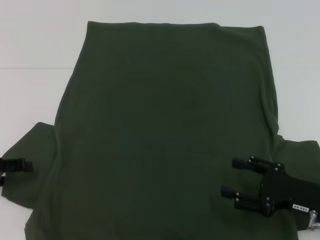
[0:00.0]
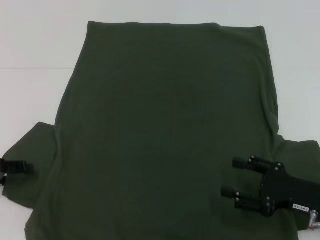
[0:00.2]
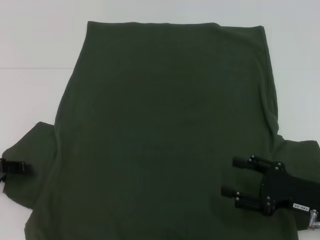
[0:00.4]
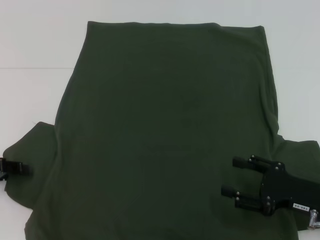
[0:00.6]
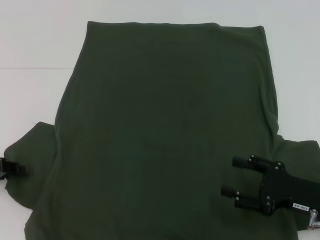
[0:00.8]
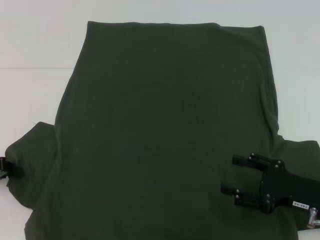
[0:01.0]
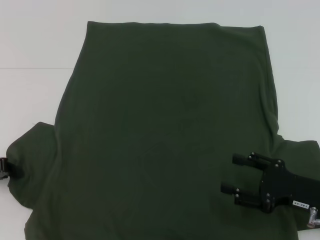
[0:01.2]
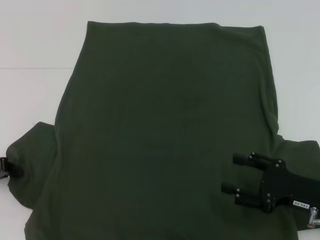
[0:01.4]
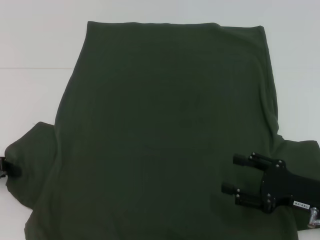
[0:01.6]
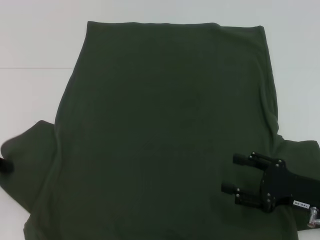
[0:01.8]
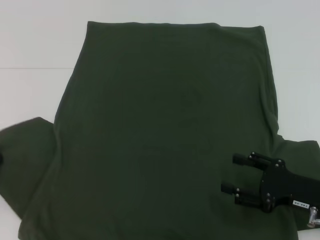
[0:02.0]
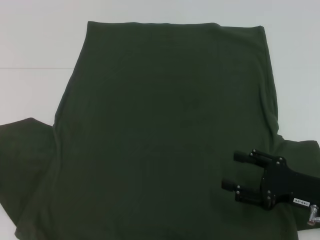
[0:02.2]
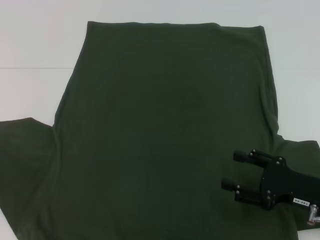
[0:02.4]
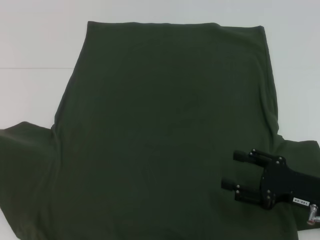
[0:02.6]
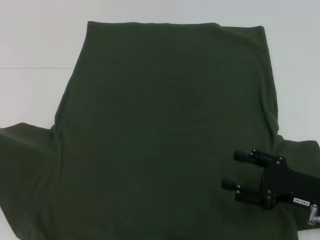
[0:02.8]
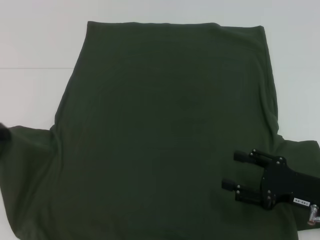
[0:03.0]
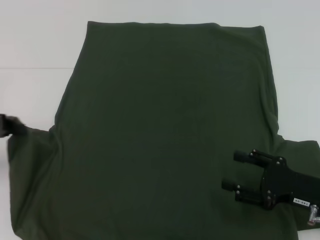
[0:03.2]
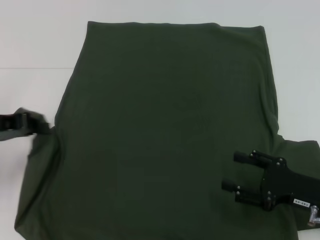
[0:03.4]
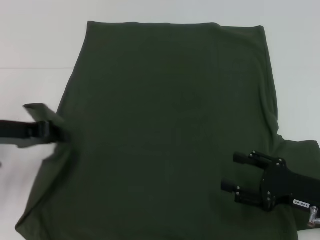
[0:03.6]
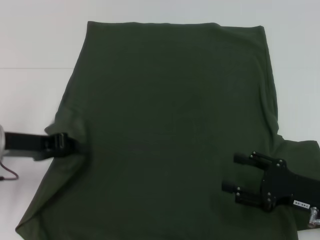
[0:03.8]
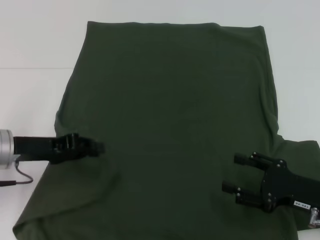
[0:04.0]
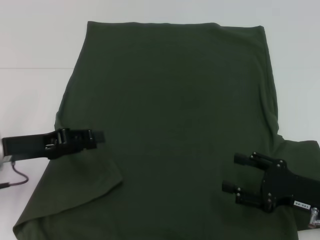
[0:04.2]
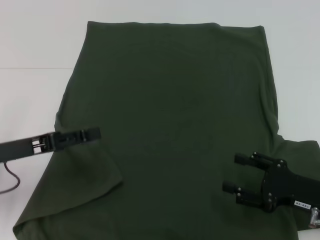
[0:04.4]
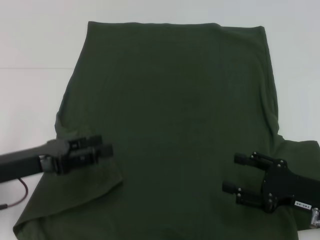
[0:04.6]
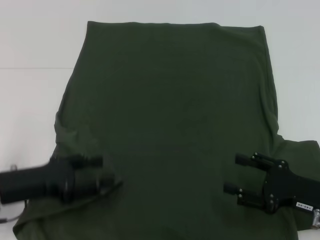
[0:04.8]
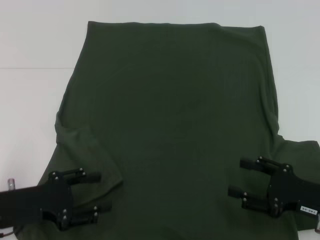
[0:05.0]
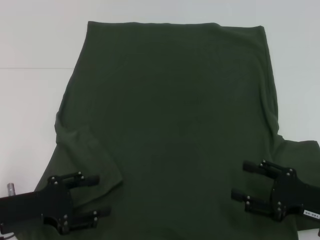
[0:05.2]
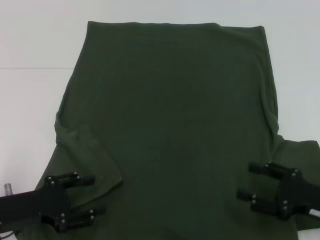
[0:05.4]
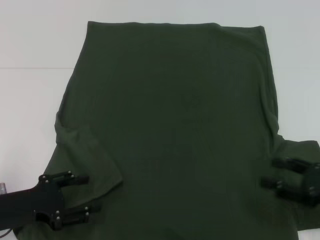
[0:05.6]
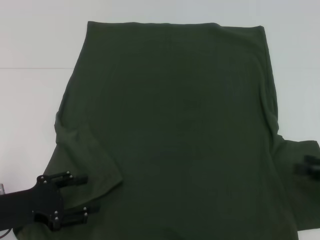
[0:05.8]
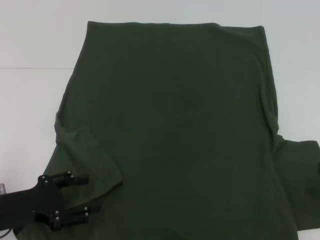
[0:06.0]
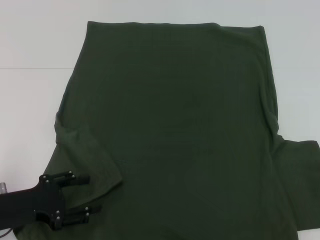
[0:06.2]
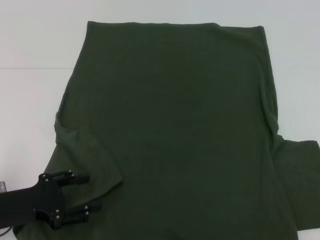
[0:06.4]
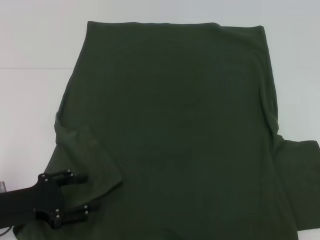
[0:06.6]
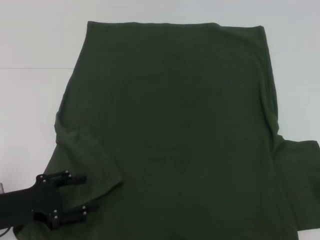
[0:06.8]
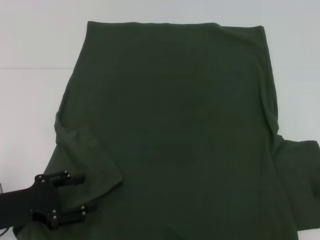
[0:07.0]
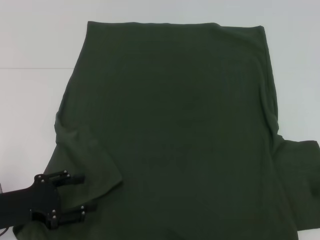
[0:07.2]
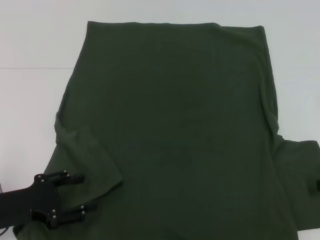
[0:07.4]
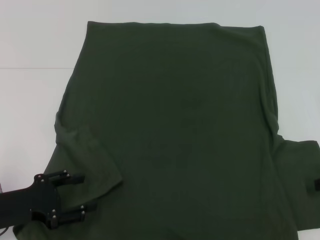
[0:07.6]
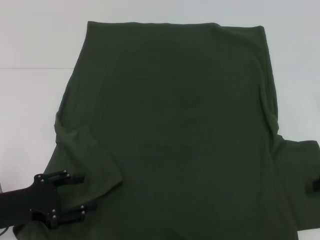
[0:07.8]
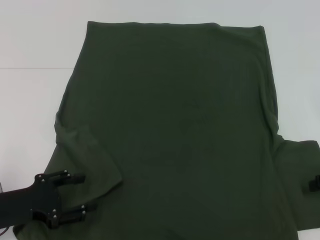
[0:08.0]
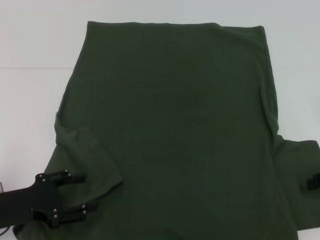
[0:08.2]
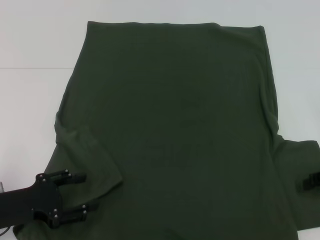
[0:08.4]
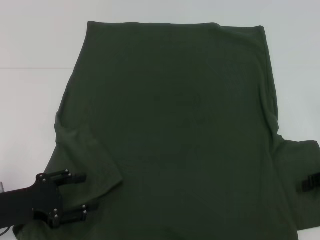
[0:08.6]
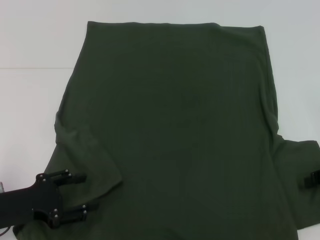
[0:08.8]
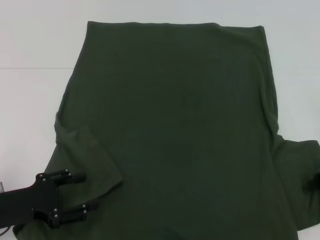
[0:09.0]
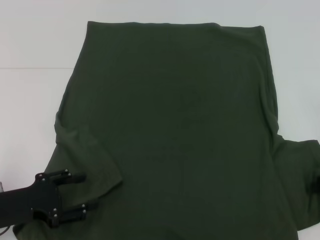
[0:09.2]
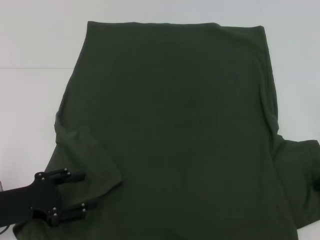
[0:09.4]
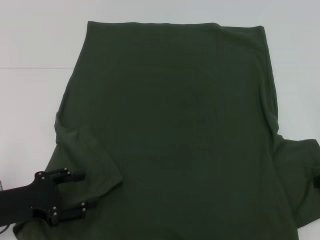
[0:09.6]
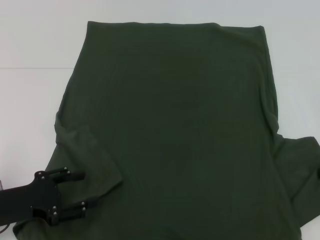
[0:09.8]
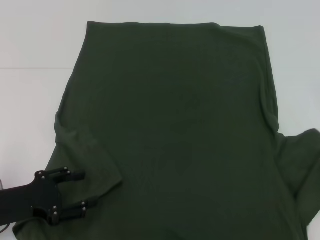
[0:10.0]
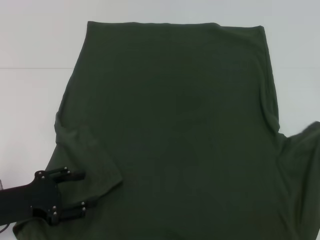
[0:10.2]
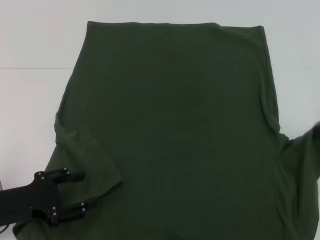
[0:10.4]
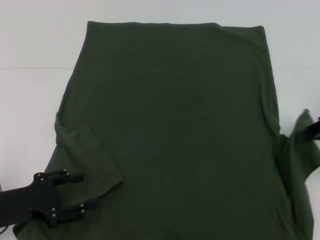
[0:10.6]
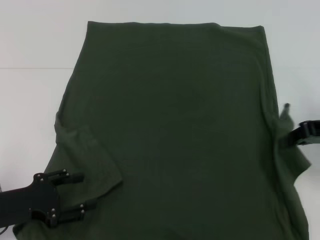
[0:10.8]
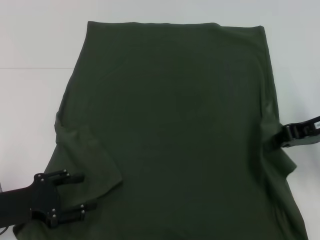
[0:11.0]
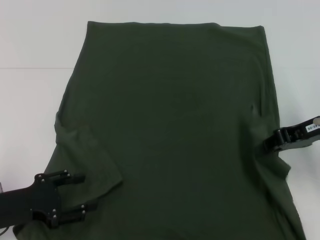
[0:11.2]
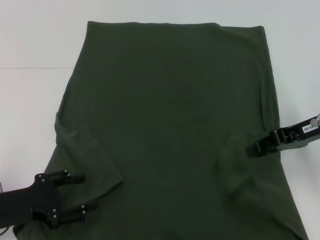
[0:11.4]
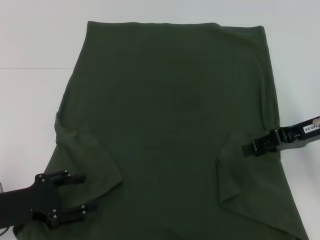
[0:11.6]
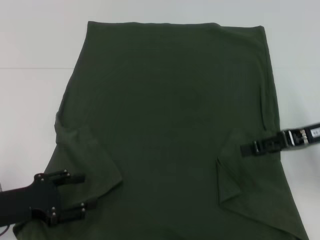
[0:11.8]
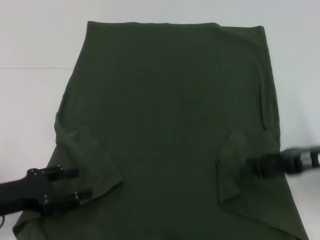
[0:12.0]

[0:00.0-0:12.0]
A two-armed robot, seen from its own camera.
Step, 0:00.0 to 0:04.0: Fold the bottom left sleeve with your left hand.
Step, 0:04.2 to 0:11.4: Fold the bottom right sleeve with your right hand.
0:00.0 to 0:01.6: The left gripper closes its fingers.
0:01.6 to 0:03.0: The left gripper moves upward, some 5 cm.
0:03.0 to 0:04.4: The left gripper is displaced to the right by approximately 10 cm, and opens up.
0:04.4 to 0:06.0: The left gripper goes roughly 5 cm backward, and opens; the right gripper is displaced to the right and upward by roughly 15 cm.
0:09.0 to 0:10.4: The right gripper is displaced upward by about 5 cm, and closes its fingers.
0:10.4 to 0:12.0: The right gripper moves to the left, some 5 cm, and opens.

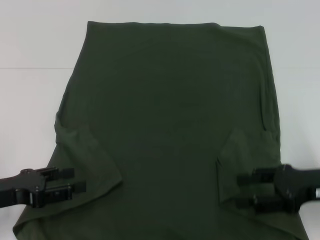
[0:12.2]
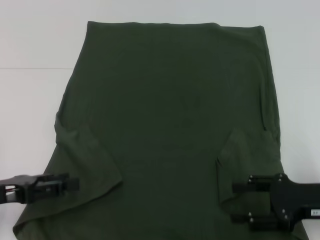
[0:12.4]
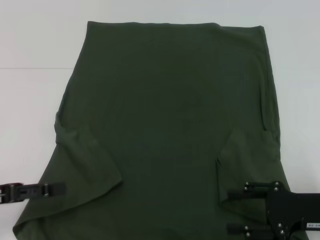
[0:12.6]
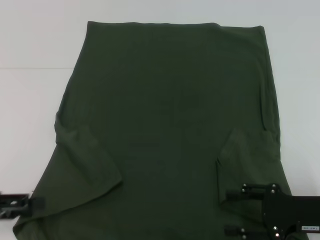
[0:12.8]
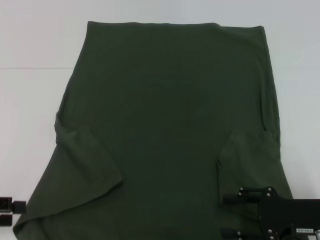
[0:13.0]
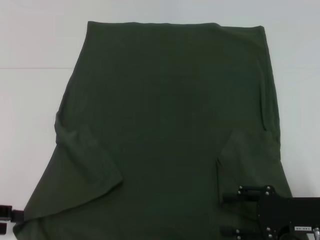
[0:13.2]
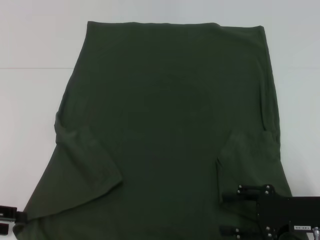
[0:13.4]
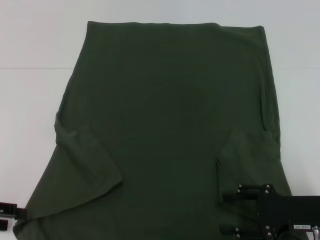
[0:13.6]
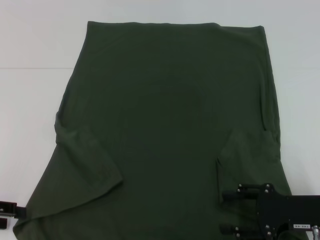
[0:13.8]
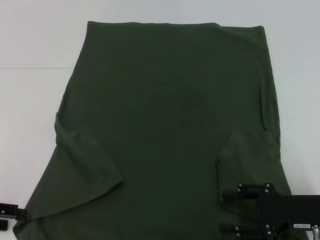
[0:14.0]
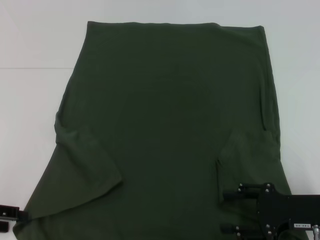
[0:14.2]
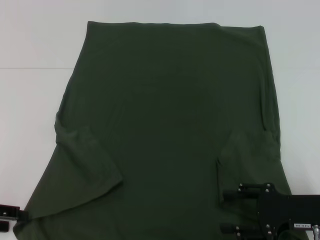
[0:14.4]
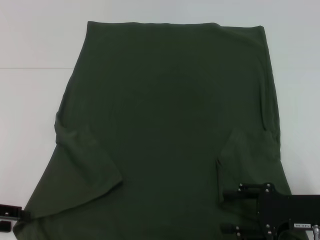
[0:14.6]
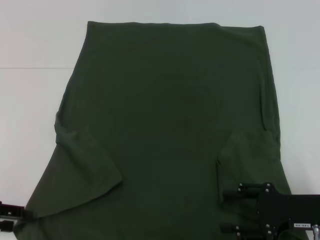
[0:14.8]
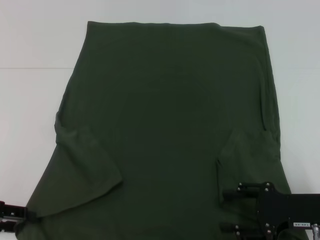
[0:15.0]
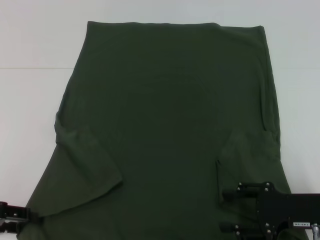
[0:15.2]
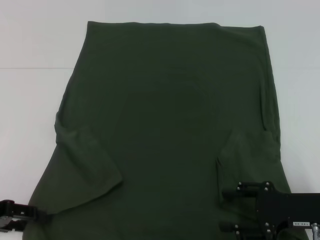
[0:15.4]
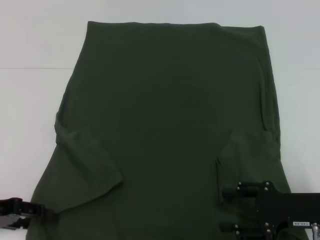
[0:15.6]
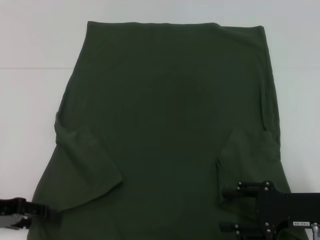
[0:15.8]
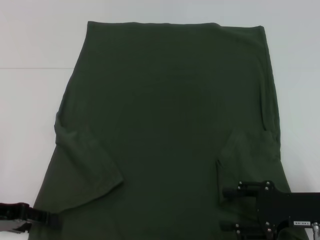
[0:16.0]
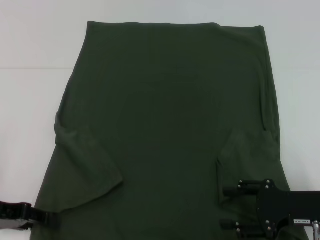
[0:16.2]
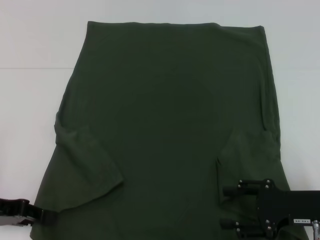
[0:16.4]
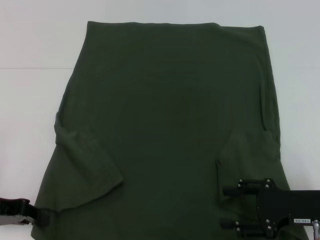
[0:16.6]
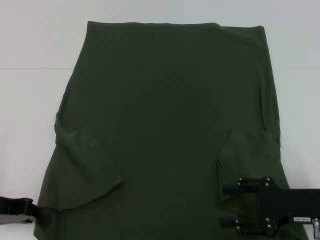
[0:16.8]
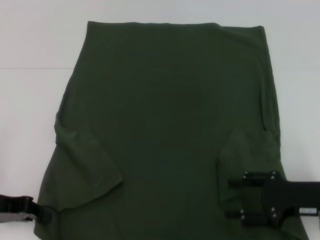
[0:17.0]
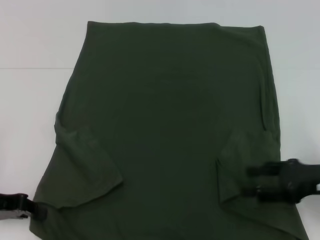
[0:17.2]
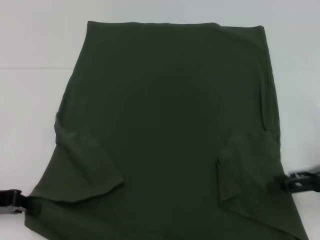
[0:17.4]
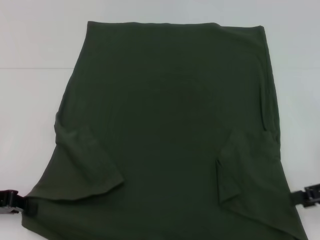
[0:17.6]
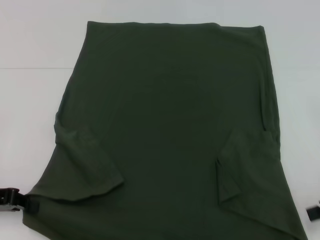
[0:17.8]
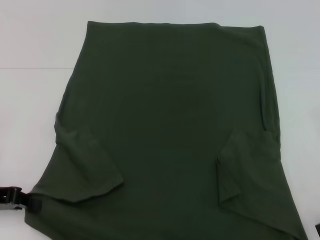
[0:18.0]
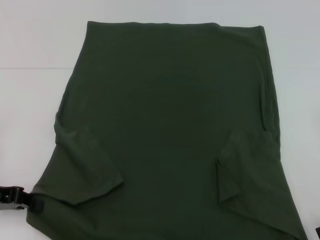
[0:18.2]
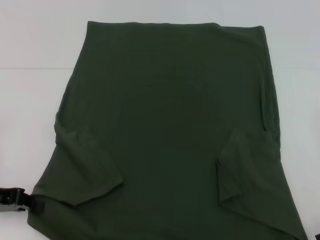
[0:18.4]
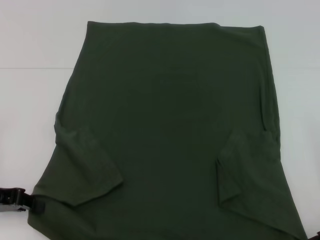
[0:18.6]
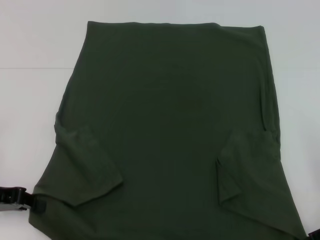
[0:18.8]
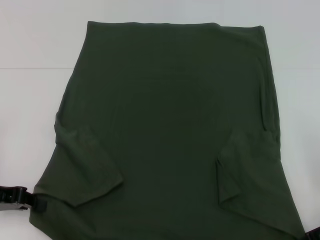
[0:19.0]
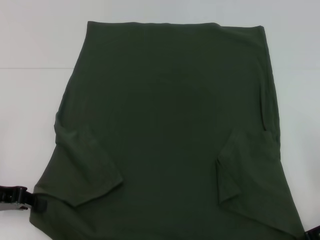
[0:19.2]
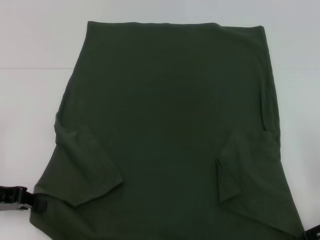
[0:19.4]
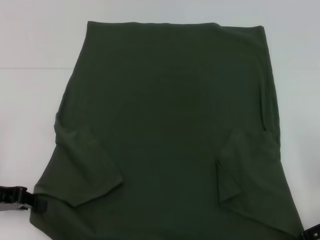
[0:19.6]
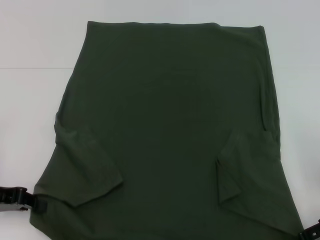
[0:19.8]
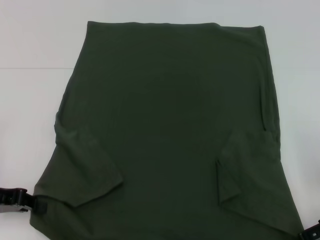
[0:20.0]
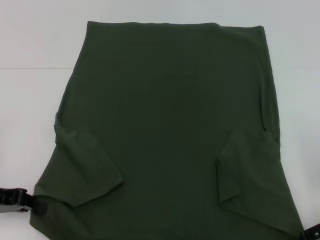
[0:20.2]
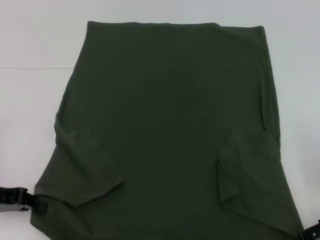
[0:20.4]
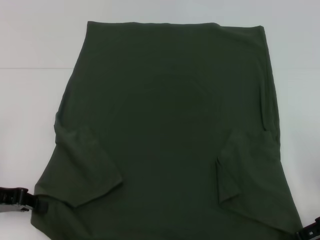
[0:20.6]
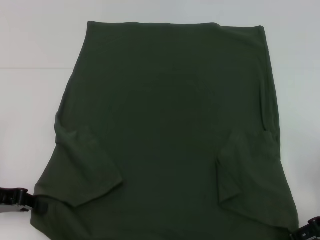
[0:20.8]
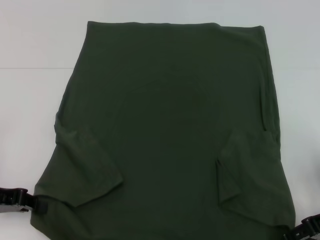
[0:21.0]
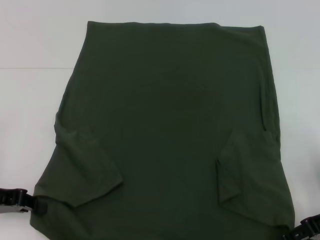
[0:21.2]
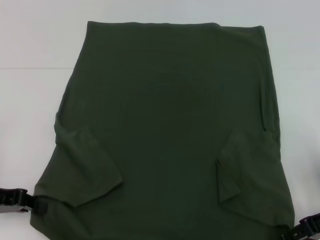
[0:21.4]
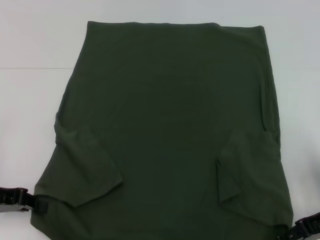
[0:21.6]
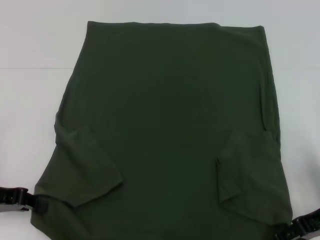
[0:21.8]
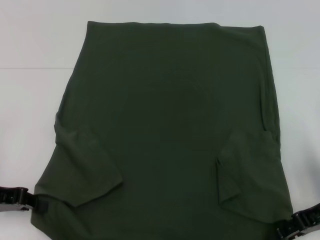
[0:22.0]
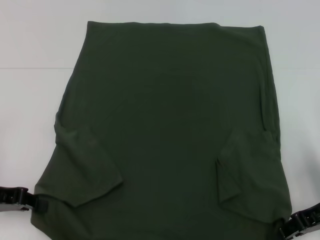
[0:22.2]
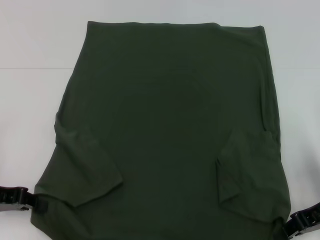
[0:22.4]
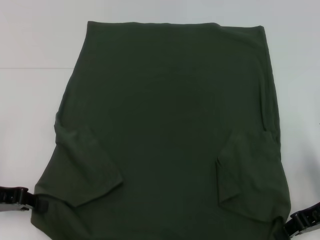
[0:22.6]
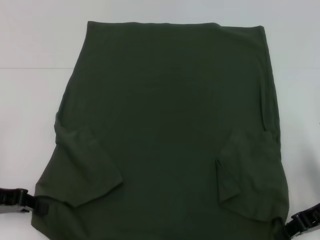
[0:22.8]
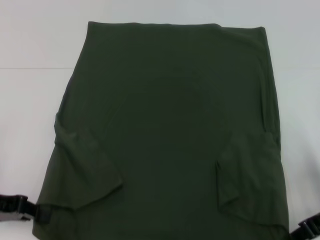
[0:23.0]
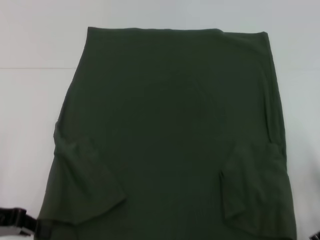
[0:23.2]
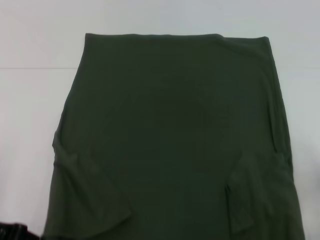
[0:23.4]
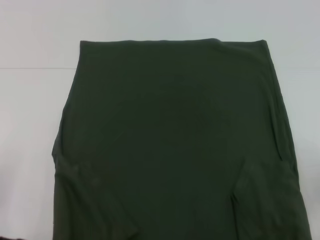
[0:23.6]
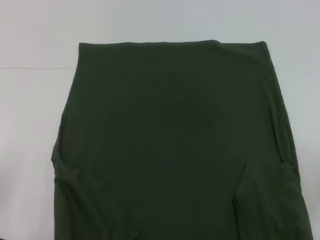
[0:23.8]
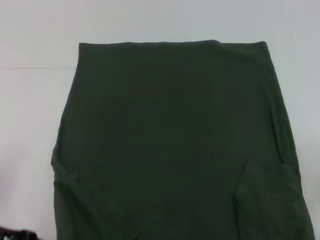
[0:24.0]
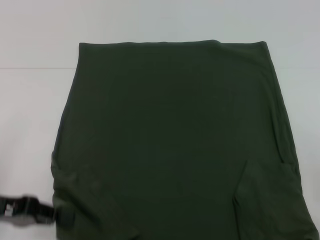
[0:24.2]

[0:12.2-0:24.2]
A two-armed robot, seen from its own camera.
Step, 0:12.2 to 0:16.4: Grab the bottom left corner with your left hand.
Step, 0:16.6 to 0:22.6: Grab the bottom right corner with your right hand.
0:12.2 to 0:13.8: The left gripper shifts roughly 5 cm to the left; the right gripper changes place by some 5 cm.
0:13.8 to 0:15.2: The grippers move only a little.
0:15.2 to 0:16.6: The left gripper closes.
0:16.6 to 0:18.2: The right gripper travels to the right and upward by about 10 cm.
0:19.8 to 0:21.2: There are only small adjustments of the grippers.
0:21.2 to 0:22.6: The right gripper closes its fingers.
0:22.6 to 0:24.2: The right gripper shifts by approximately 5 cm.
